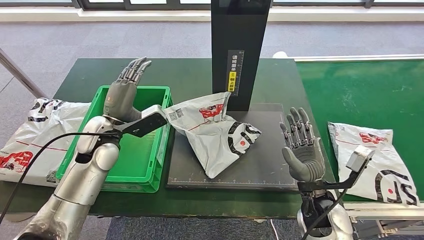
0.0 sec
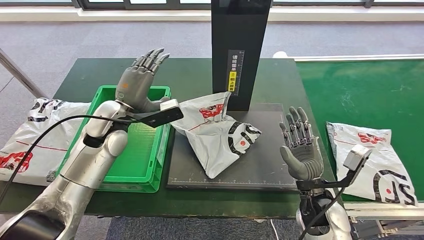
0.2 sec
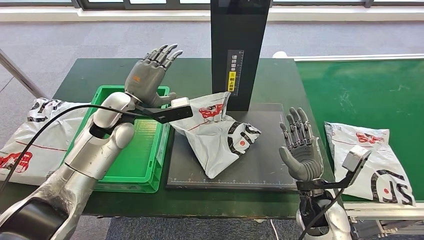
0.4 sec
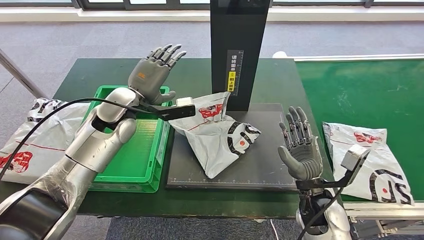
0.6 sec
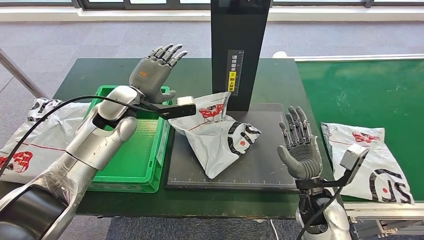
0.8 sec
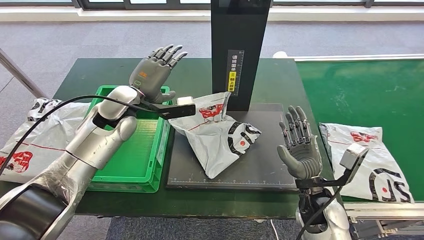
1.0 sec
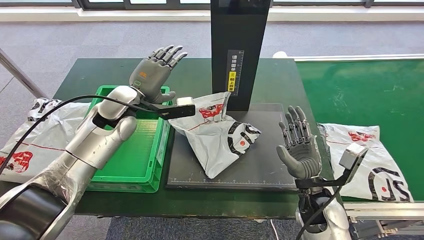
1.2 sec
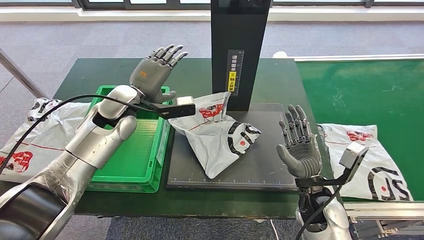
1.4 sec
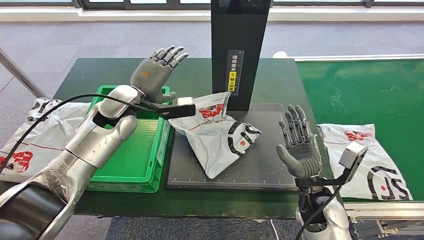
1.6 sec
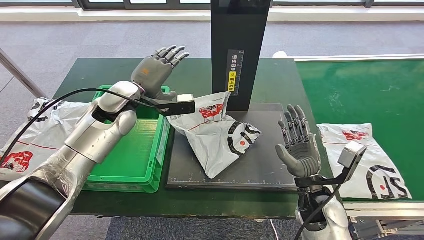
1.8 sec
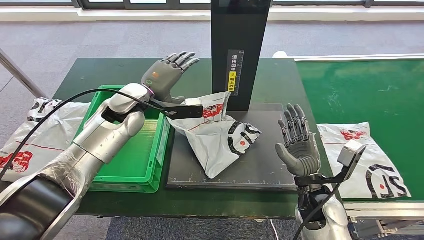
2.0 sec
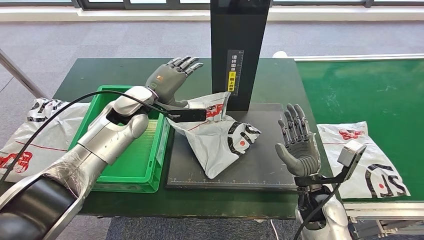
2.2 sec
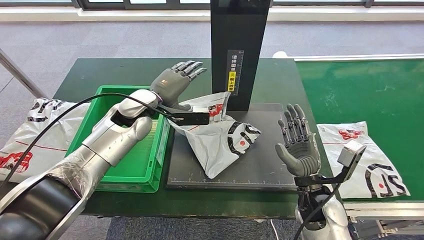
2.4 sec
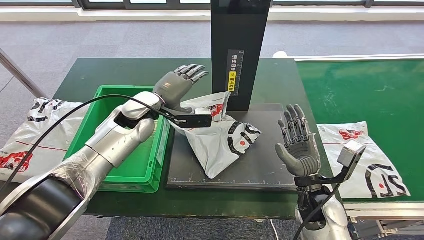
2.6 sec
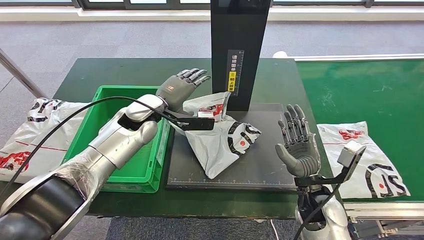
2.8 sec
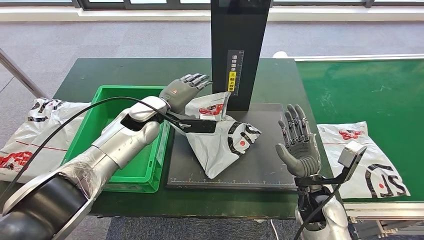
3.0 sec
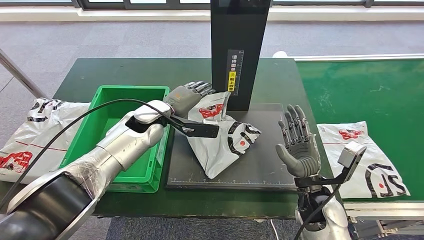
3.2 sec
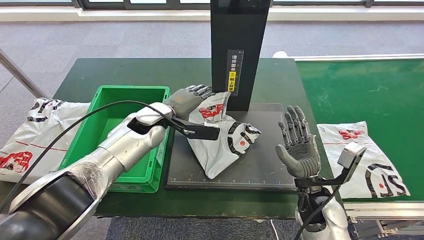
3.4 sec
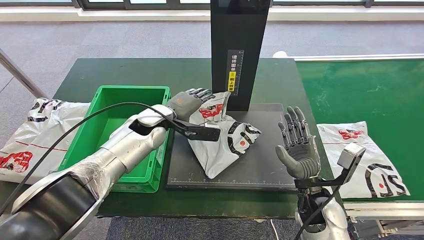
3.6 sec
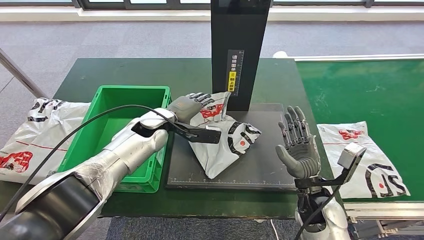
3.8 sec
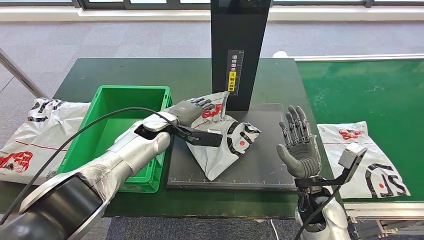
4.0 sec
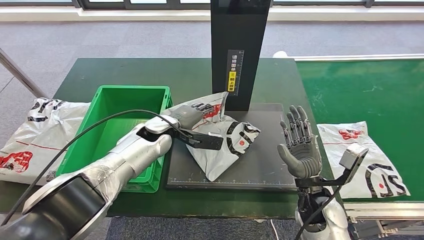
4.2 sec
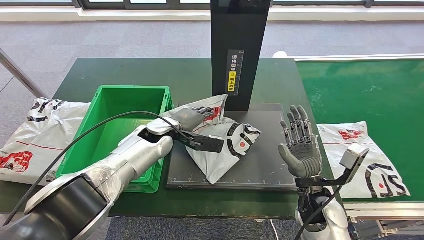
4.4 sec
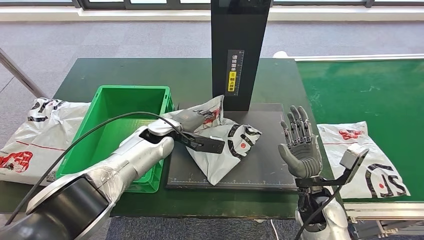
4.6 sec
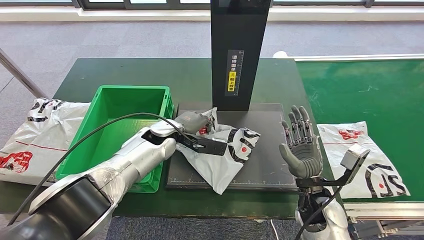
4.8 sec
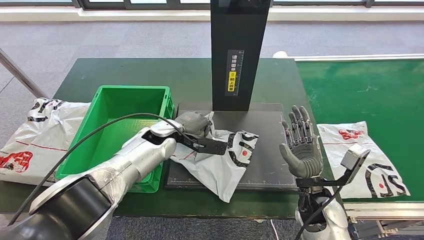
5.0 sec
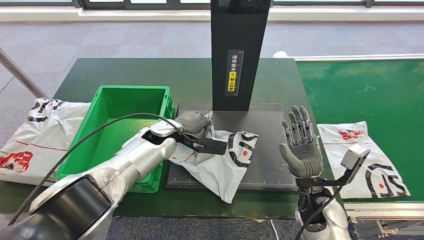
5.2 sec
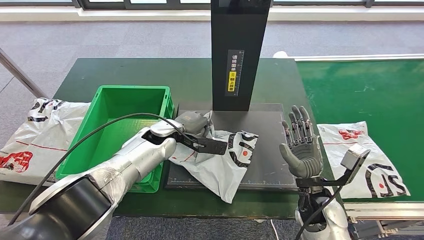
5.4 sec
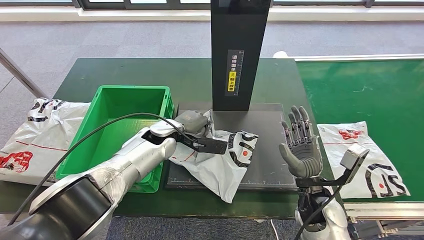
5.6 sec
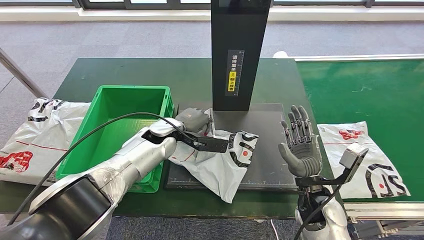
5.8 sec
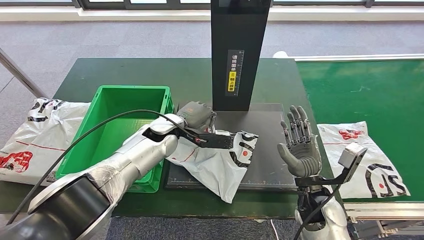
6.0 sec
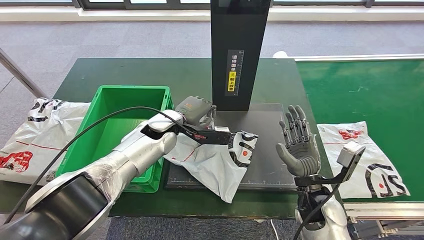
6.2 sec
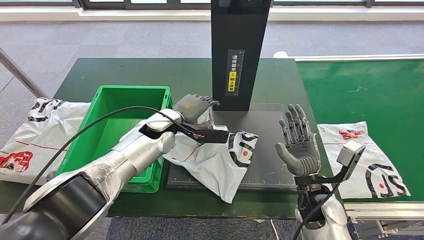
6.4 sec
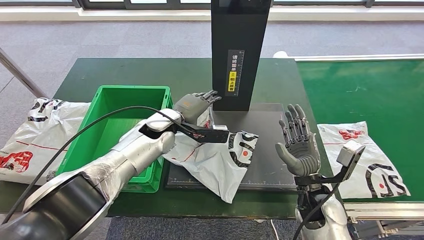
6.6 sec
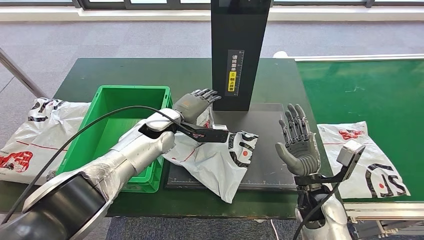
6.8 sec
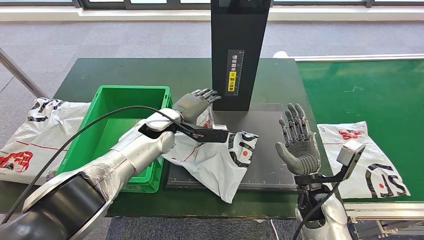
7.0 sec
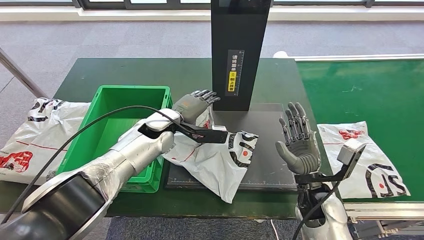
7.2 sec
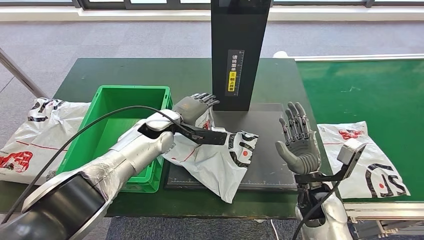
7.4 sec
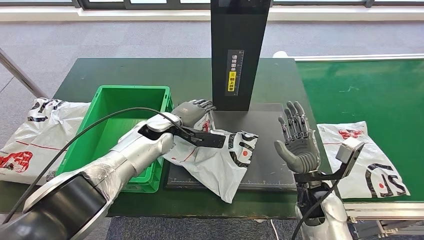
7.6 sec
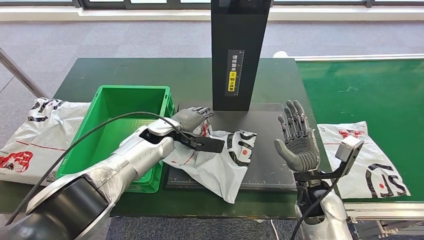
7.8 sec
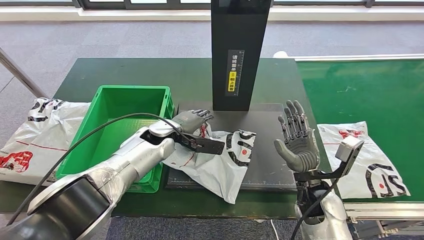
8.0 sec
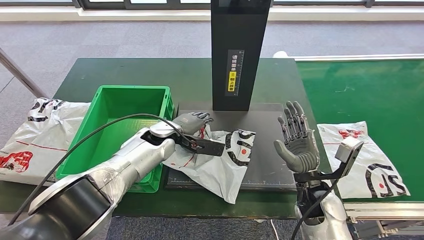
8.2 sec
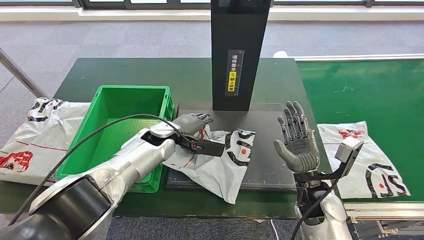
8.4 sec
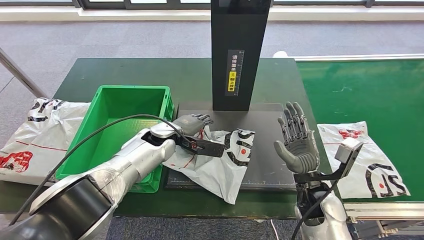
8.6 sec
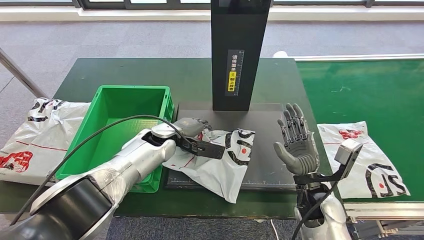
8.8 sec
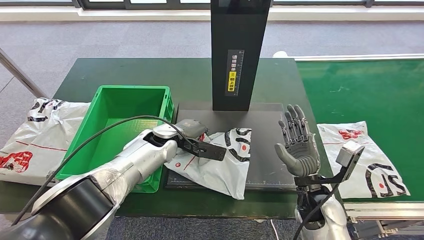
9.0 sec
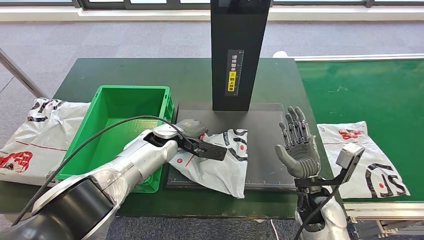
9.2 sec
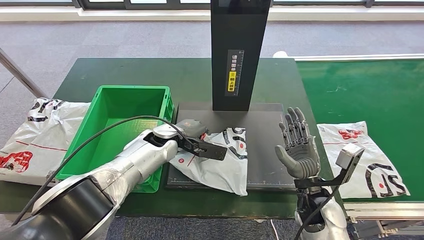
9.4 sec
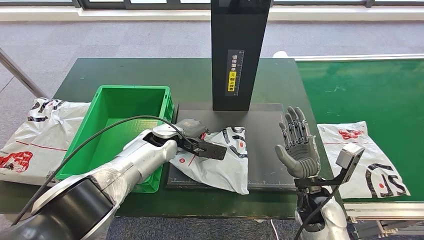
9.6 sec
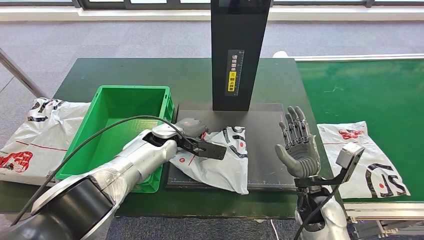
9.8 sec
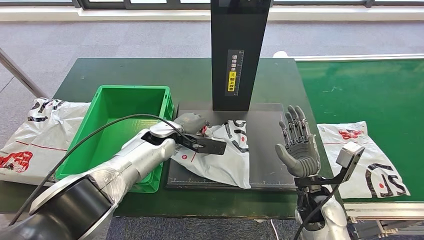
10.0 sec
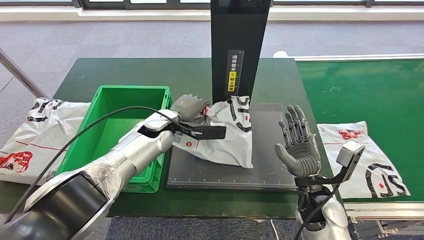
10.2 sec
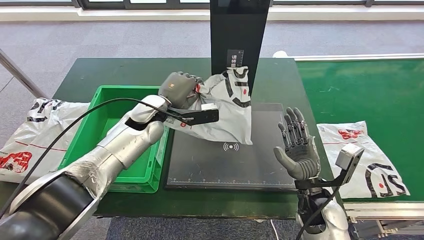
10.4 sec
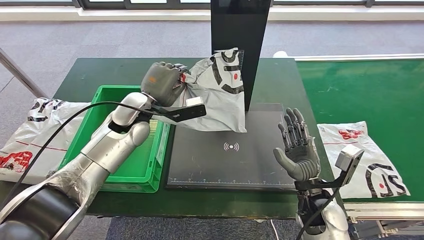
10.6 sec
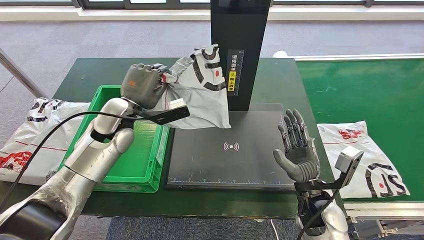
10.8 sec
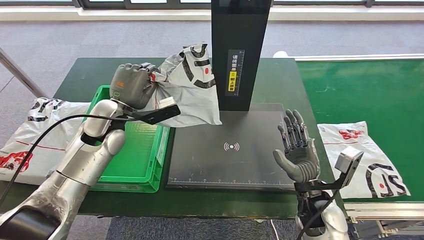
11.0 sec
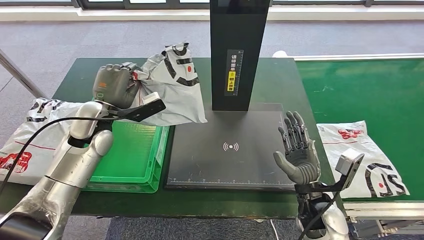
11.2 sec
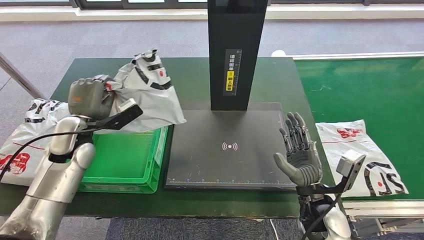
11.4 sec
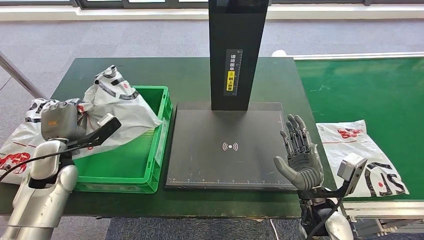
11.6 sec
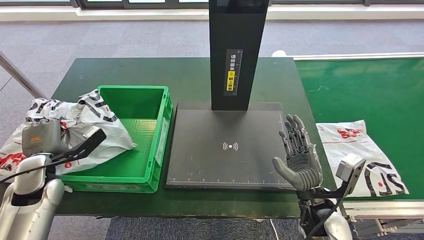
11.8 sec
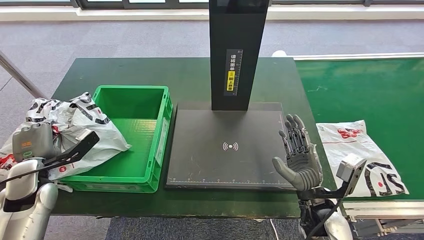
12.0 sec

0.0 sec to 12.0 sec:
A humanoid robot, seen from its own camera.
Step, 9.2 sec to 10.6 sec: Pick up the parcel from the inbound machine.
0.0 sec to 1.6 sec: The left hand moves forward, roughly 5 cm.
1.6 sec to 3.0 sec: The left hand changes place by some 5 cm.
3.0 sec to 4.4 sec: The left hand travels downward by approximately 5 cm.
4.4 sec to 9.0 sec: There are only small adjustments of the hands.

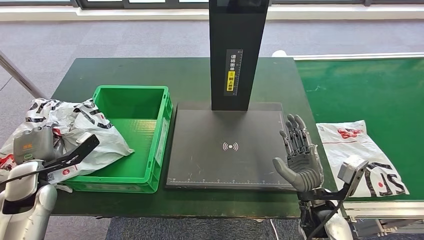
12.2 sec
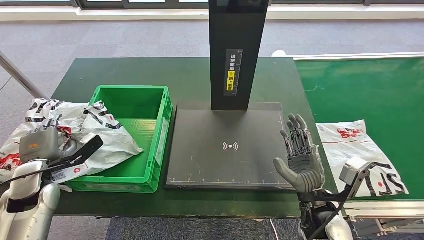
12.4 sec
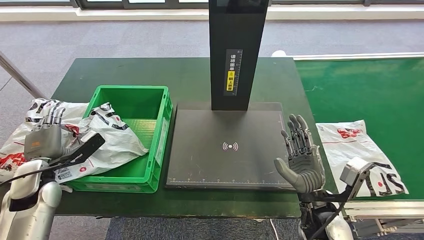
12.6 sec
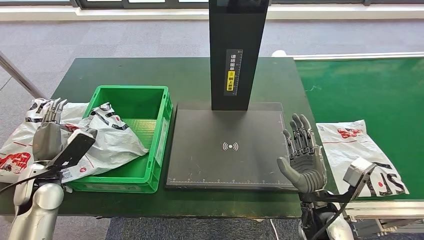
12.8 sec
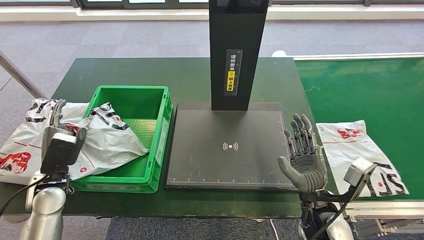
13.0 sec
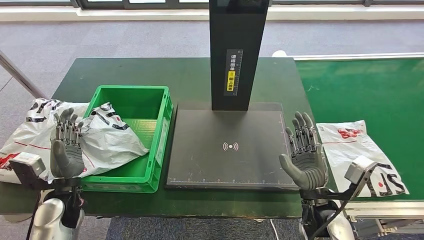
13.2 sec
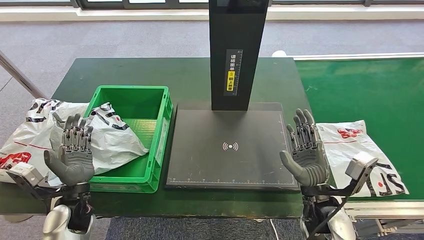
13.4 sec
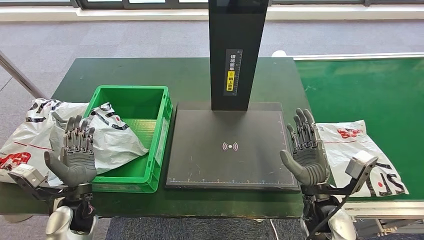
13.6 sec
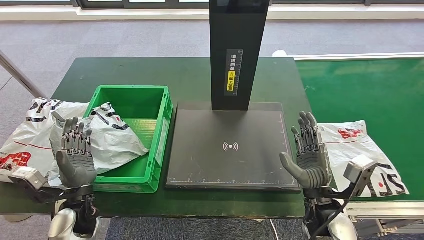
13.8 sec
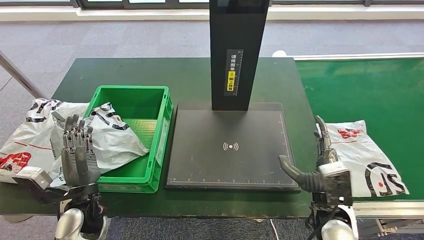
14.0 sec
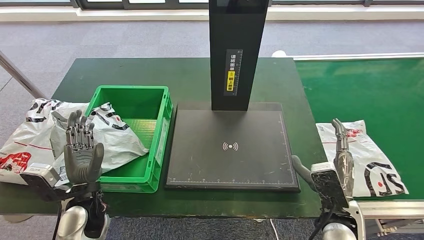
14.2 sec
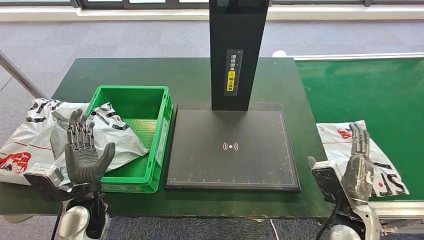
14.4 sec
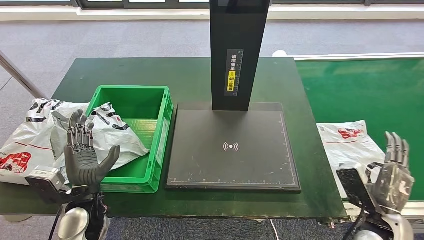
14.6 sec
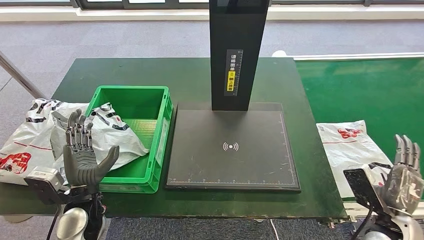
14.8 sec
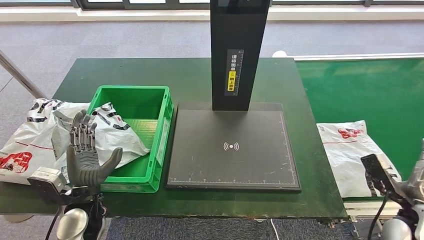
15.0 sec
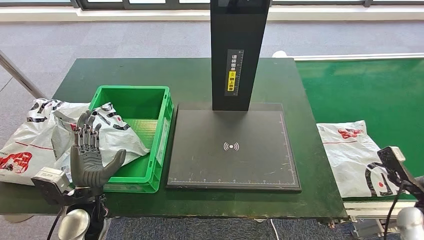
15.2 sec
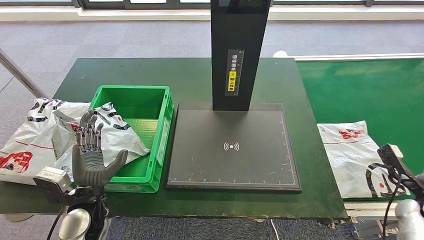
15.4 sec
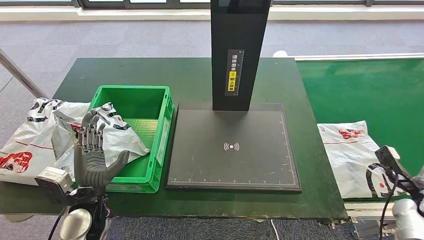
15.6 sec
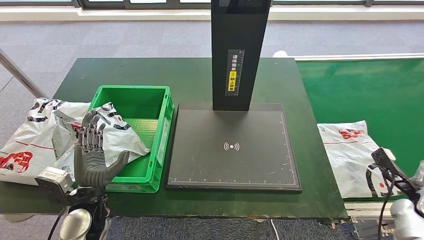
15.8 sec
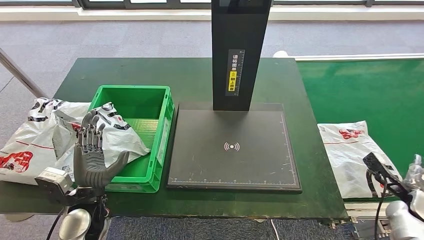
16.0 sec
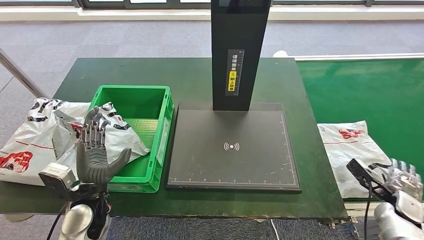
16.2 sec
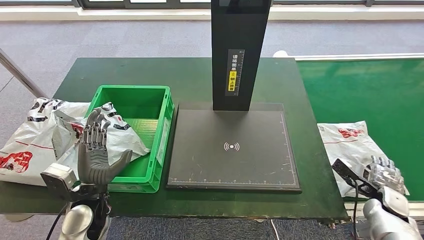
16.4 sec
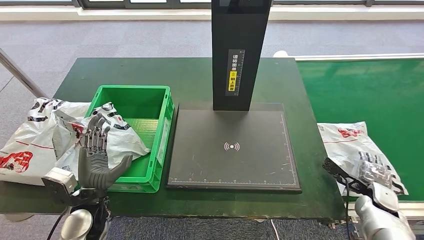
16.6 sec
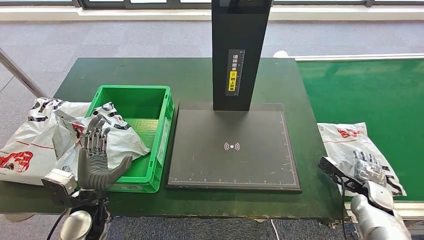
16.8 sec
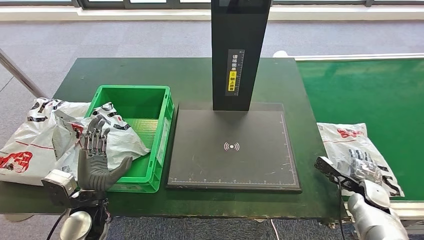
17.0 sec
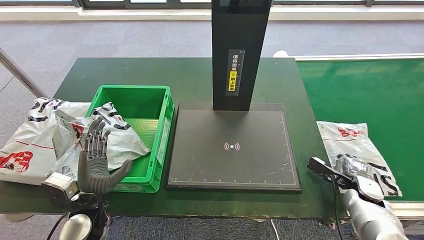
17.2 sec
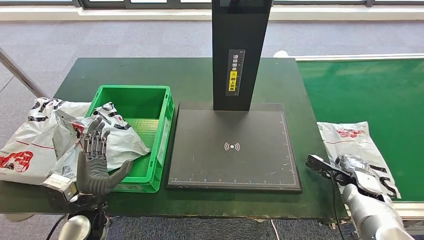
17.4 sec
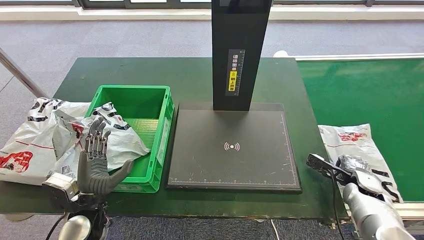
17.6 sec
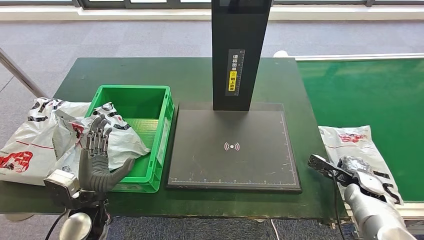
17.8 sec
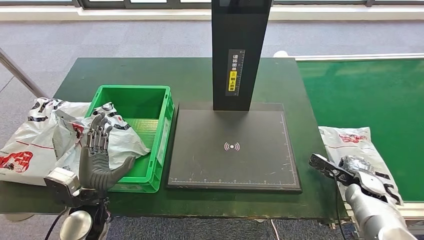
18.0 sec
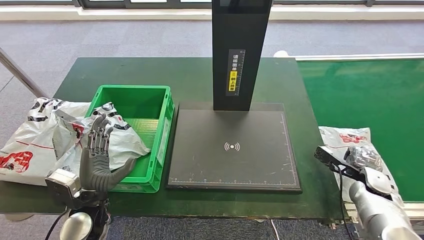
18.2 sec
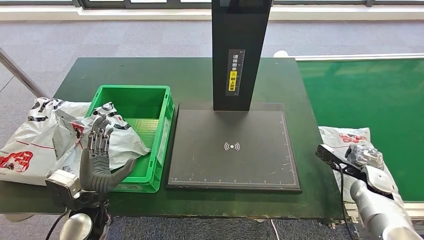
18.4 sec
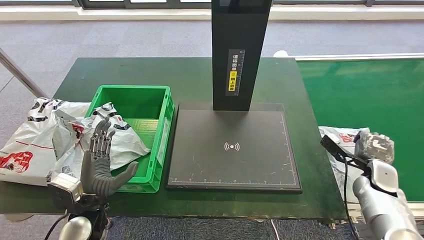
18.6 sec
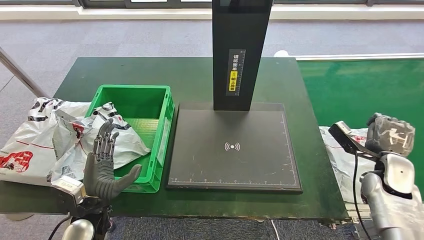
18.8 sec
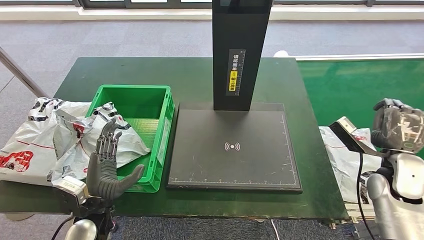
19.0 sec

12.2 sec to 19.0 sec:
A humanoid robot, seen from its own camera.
12.2 sec to 13.6 sec: The left hand heads to the right, covering about 10 cm.
13.6 sec to 15.0 sec: The right hand shifts approximately 20 cm to the right. The left hand moves roughly 5 cm.
15.0 sec to 16.2 sec: The right hand is displaced downward, to the right and forward by approximately 10 cm.
16.2 sec to 17.6 sec: The right hand travels to the left and forward by roughly 10 cm.
17.6 sec to 19.0 sec: The right hand moves upward, roughly 15 cm.
